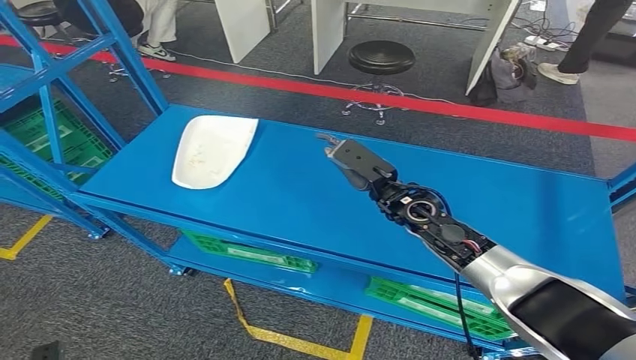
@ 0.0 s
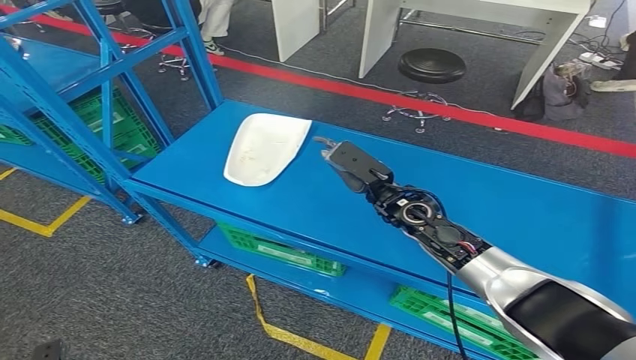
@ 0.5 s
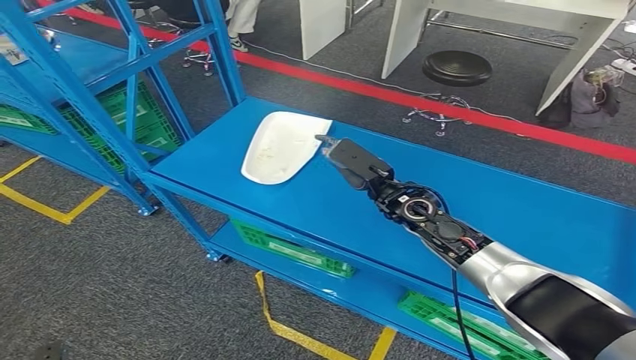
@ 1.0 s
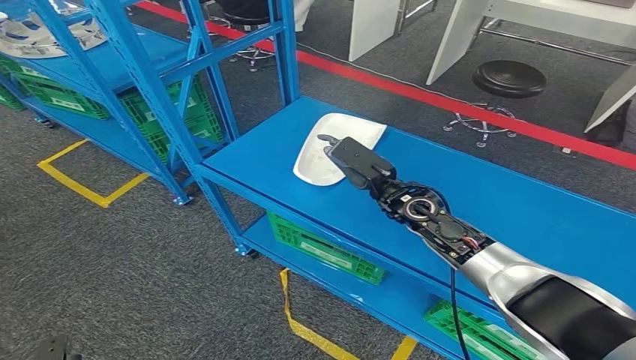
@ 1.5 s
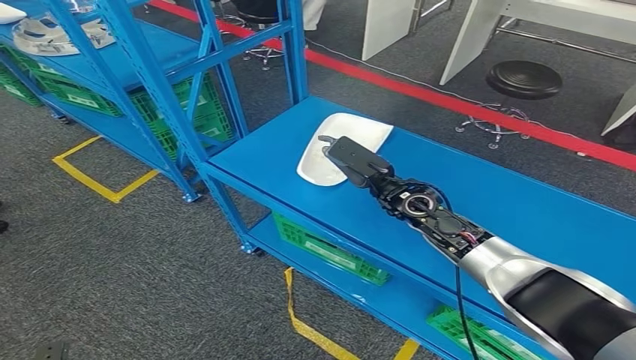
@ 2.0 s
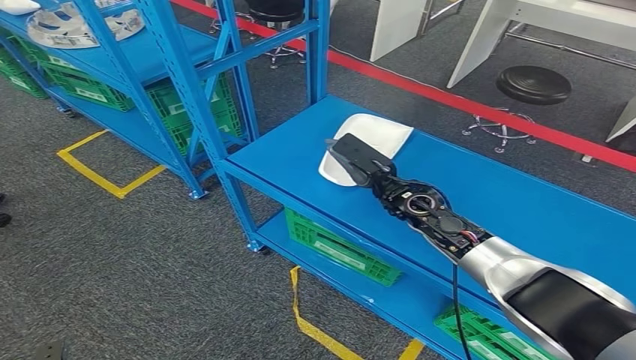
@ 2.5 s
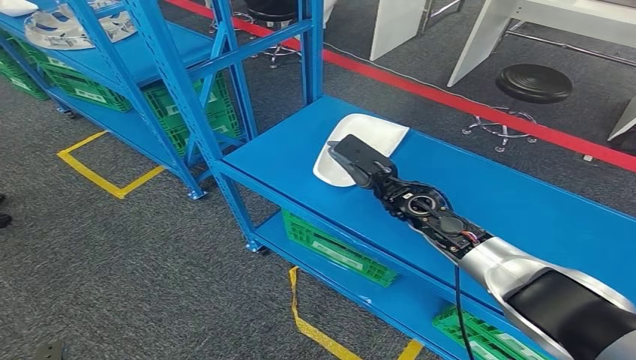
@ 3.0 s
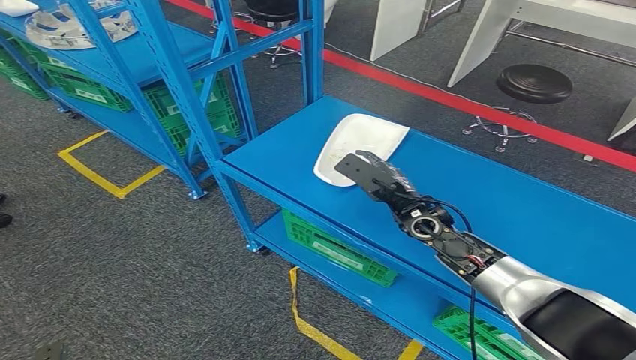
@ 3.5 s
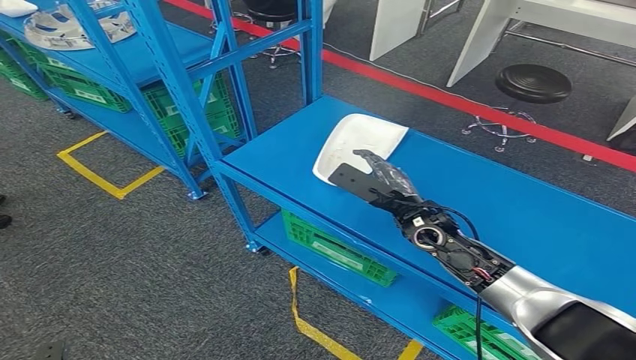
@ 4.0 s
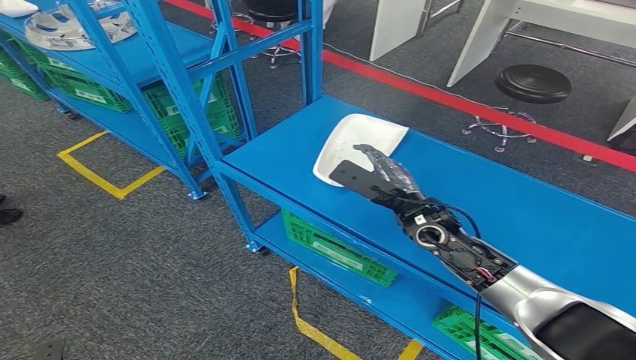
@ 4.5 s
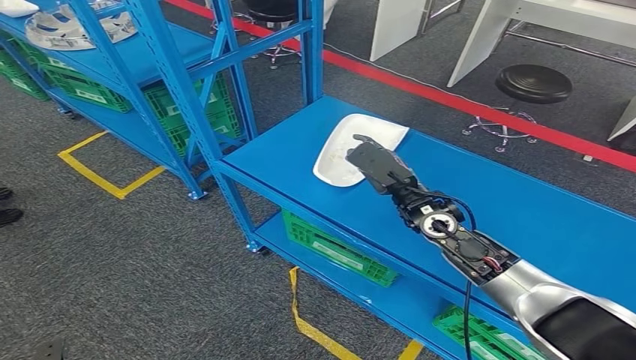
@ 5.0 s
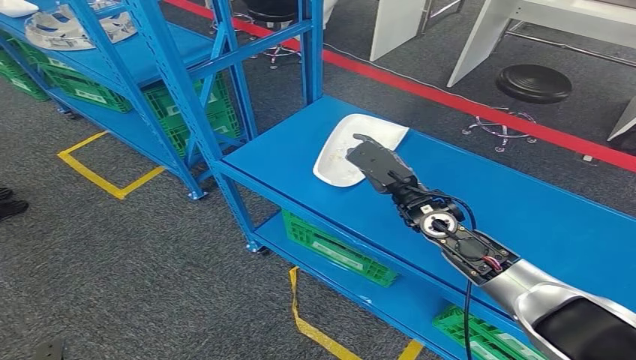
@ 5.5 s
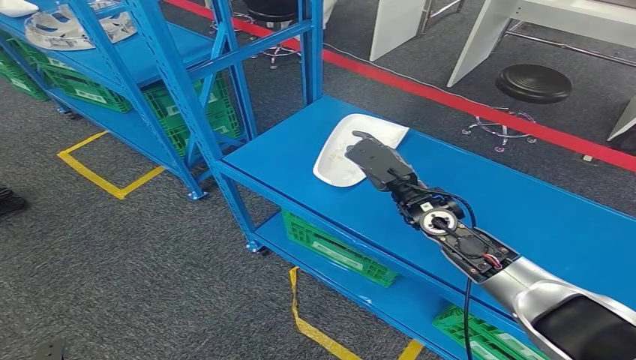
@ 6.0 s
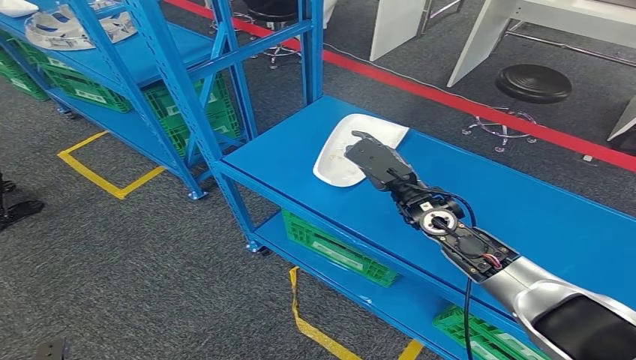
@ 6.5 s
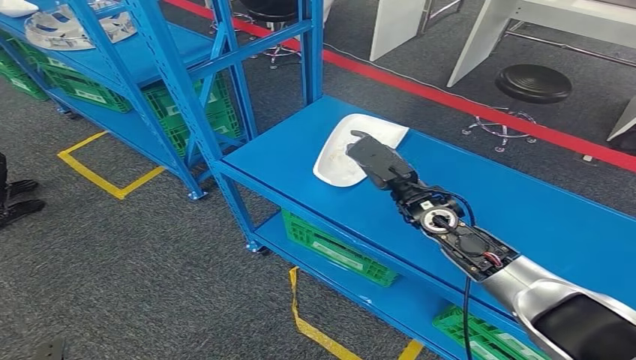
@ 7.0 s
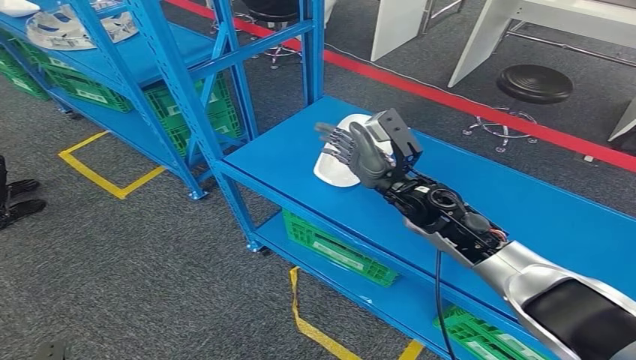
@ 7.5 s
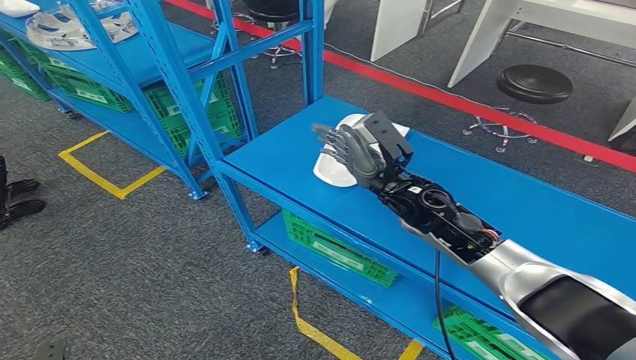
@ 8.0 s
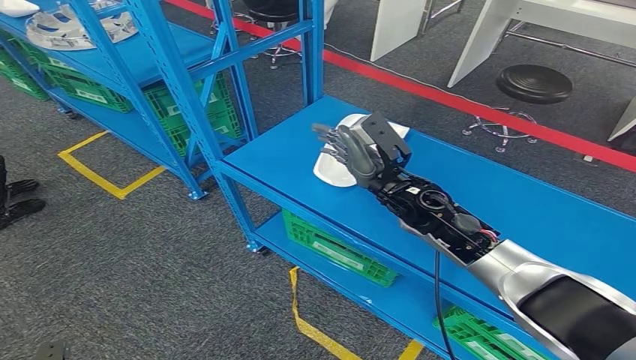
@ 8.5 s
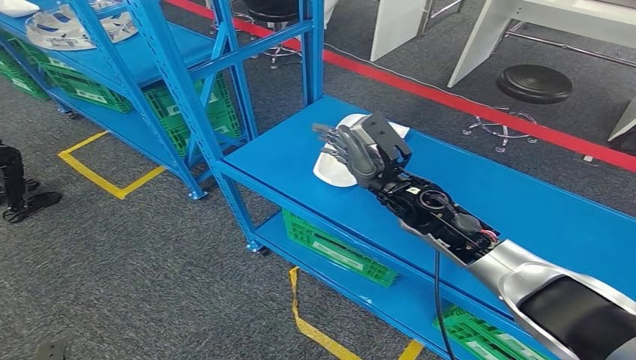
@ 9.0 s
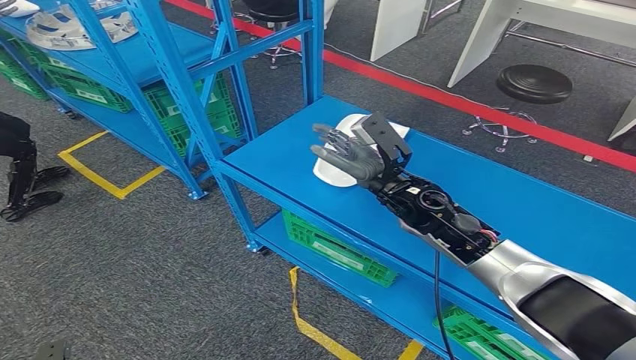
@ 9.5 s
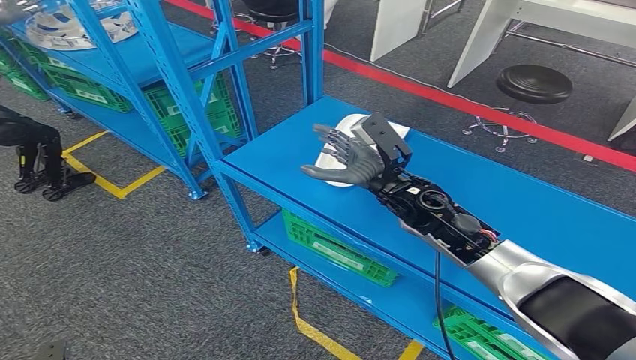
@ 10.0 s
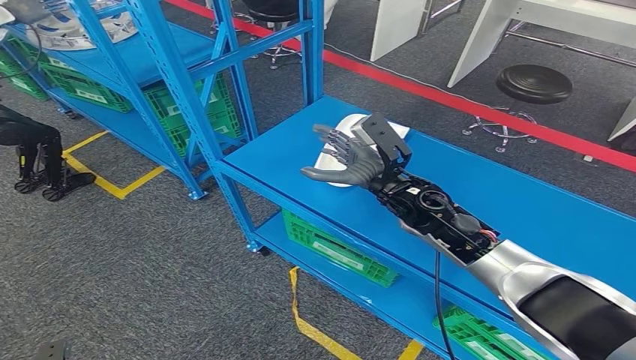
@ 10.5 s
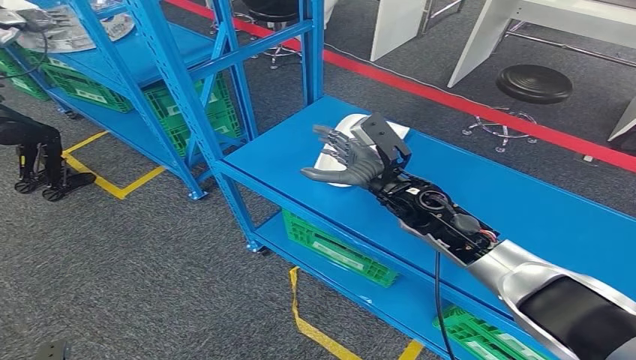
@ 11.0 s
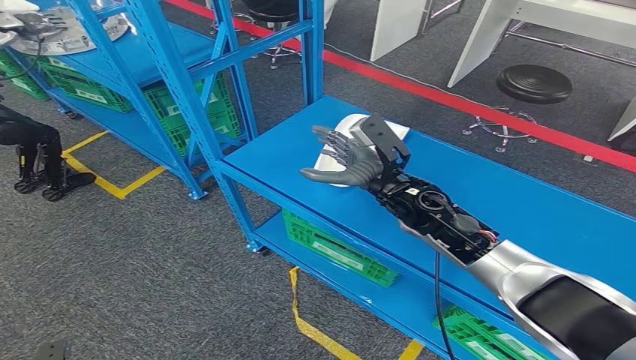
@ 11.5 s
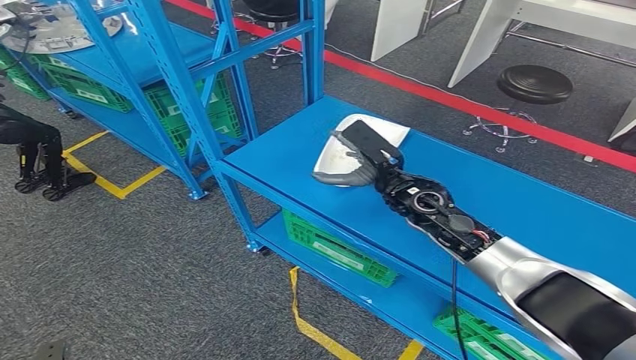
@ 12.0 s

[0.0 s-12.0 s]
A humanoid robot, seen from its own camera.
4.0 to 6.0 s: The hands make only small movements.
8.0 to 10.0 s: Both hands stay about where they are.
10.0 to 12.0 s: The hands stay close to where they were, moving slightly.

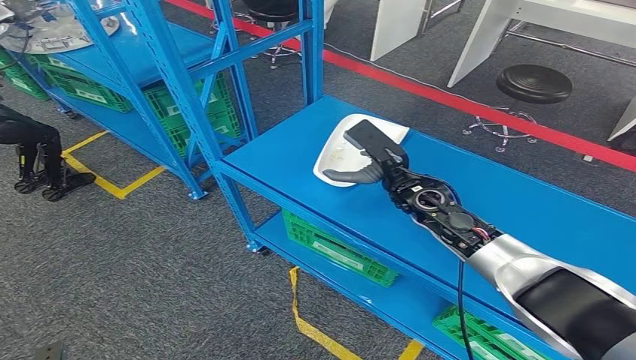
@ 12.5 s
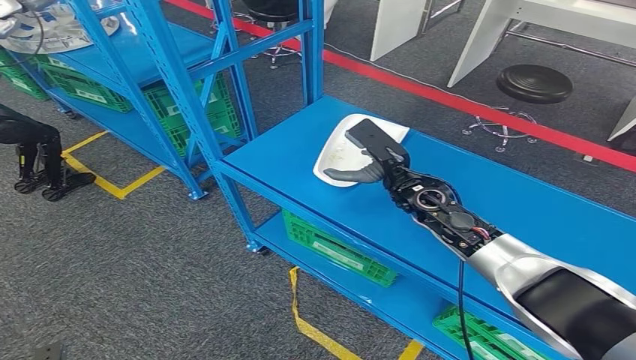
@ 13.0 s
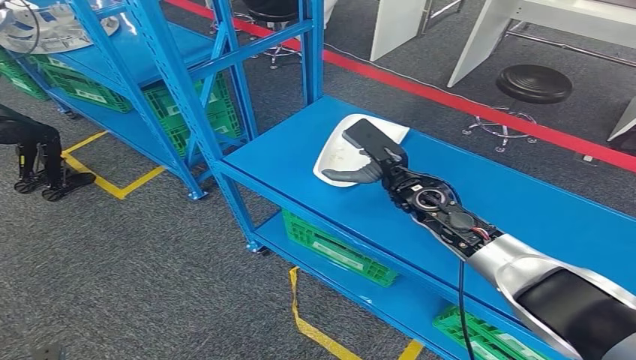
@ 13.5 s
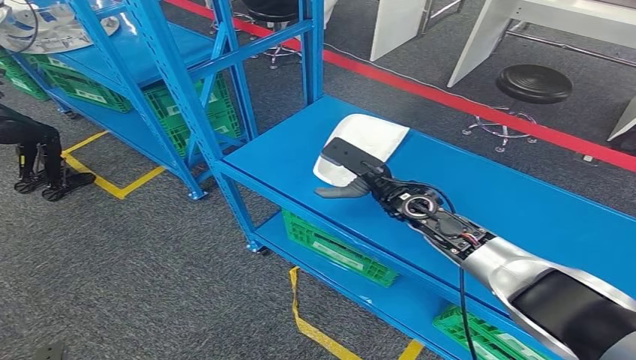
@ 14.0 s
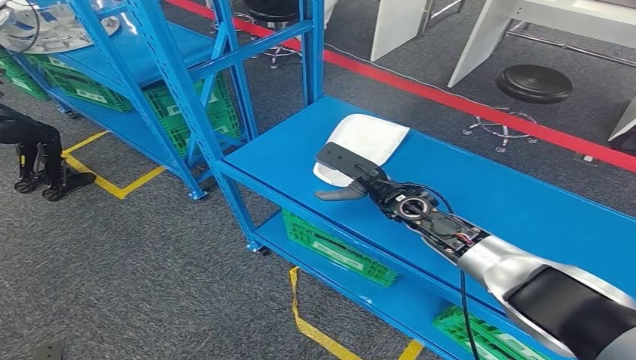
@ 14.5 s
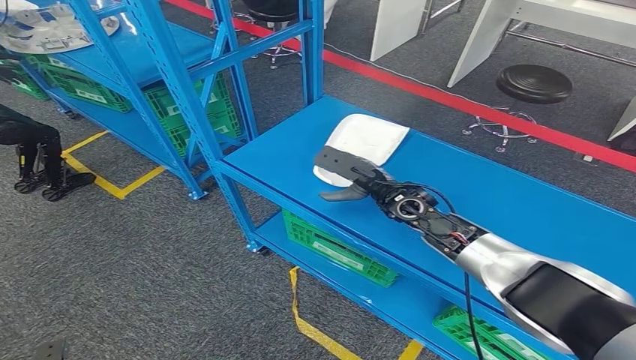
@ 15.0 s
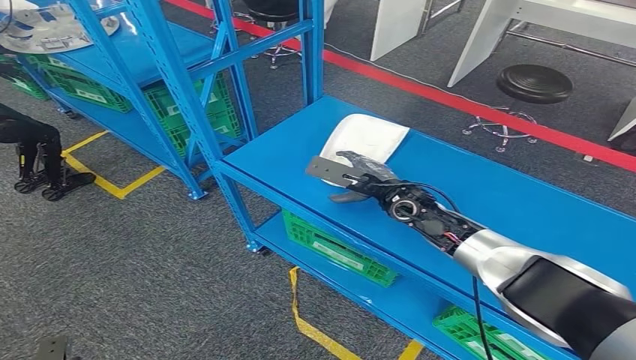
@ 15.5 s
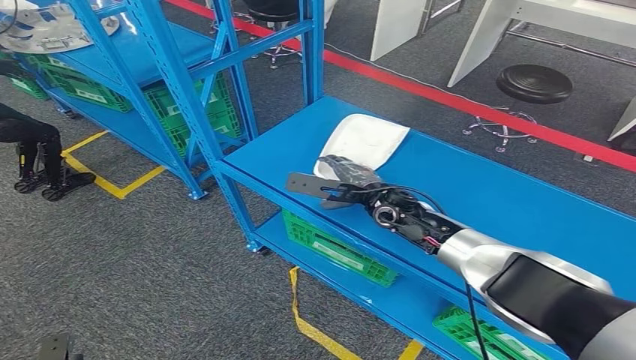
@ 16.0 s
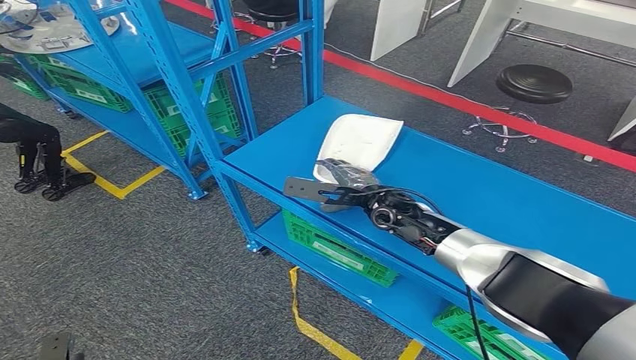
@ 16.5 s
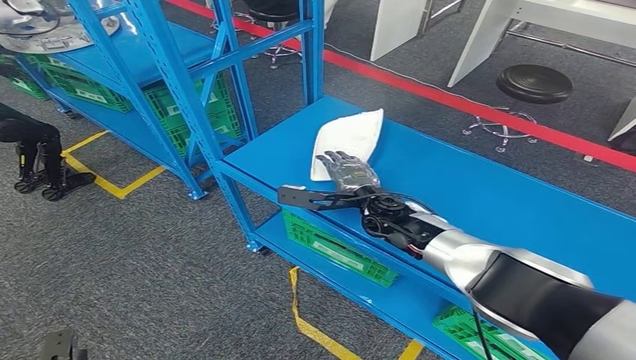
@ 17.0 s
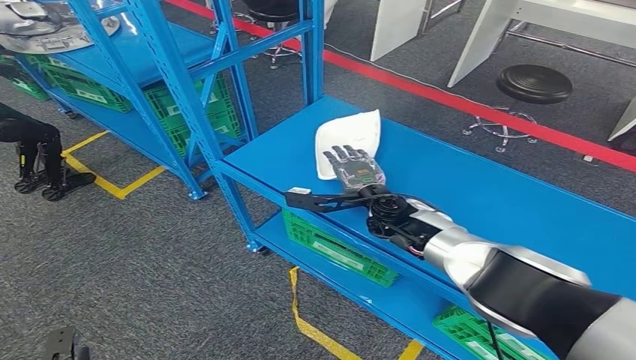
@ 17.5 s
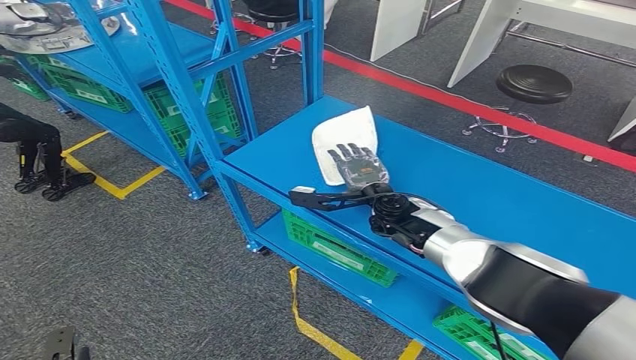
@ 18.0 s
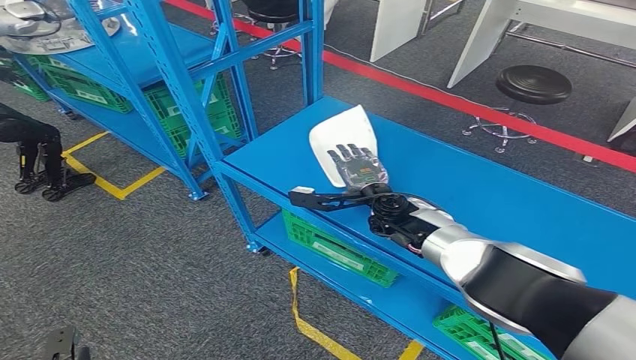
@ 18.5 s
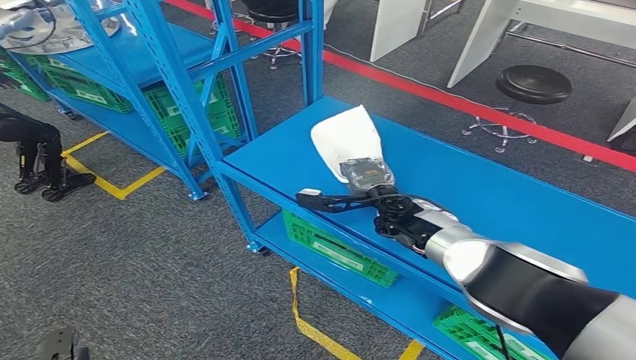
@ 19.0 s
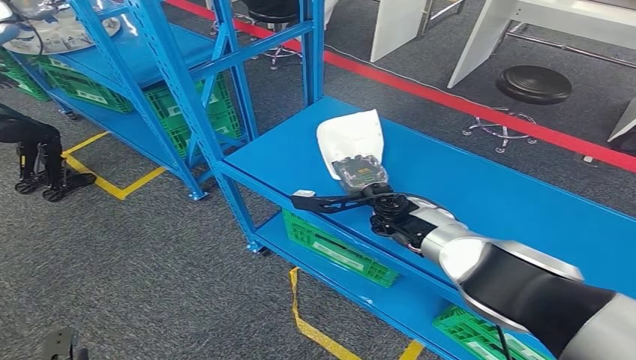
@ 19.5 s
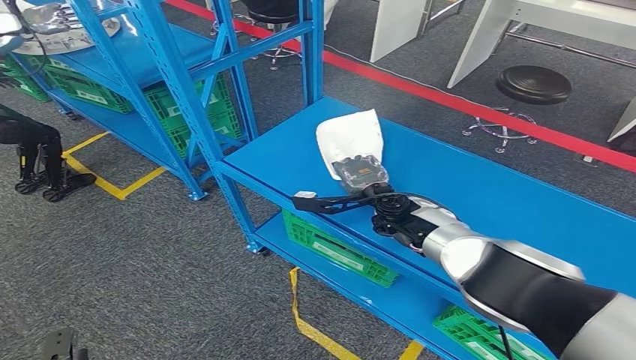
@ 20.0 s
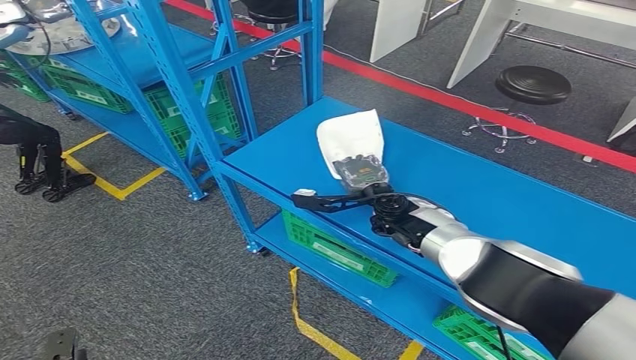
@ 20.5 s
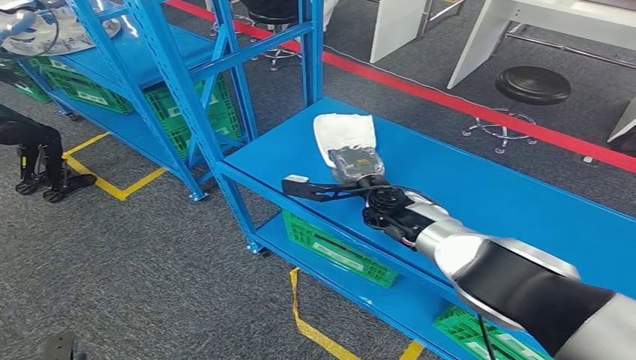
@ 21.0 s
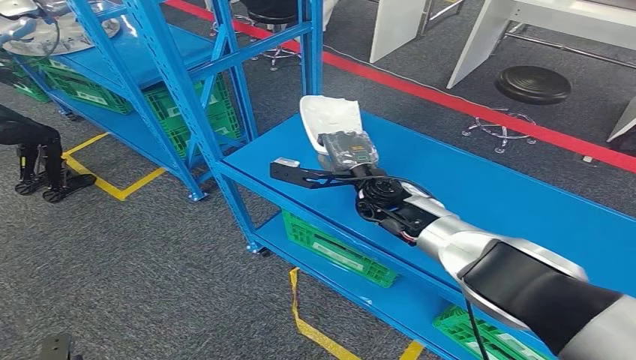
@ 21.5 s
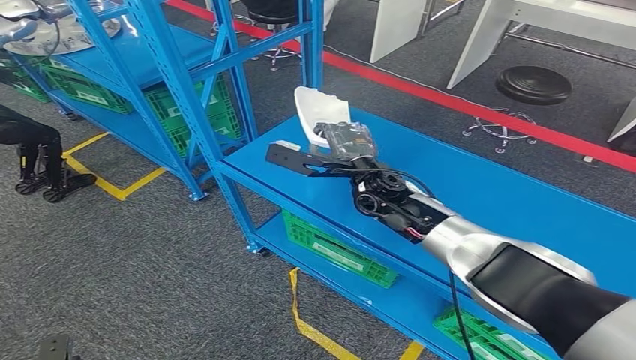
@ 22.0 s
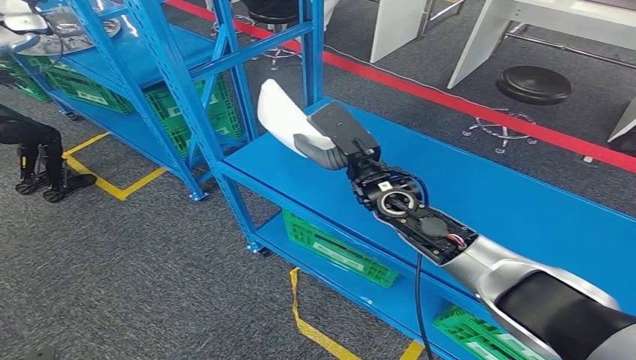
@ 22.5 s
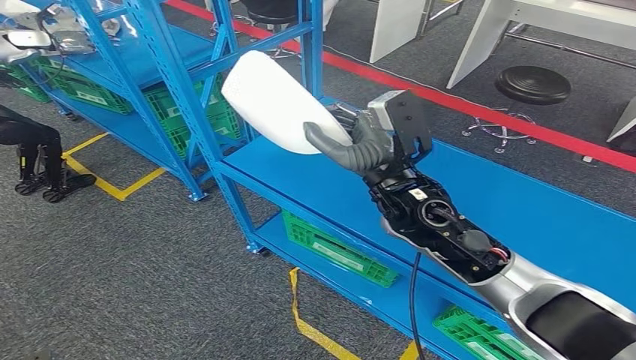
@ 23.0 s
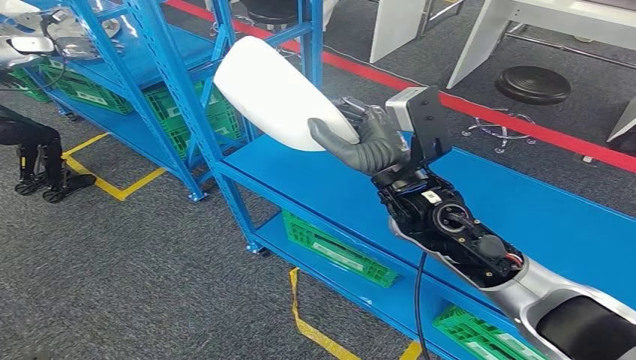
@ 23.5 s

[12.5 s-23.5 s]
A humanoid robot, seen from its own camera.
12.5 to 14.5 s: The hands move only a little.
18.0 to 20.0 s: There are only small adjustments of the hands.
20.0 to 21.5 s: The right hand shifts roughly 5 cm upward.
21.5 to 23.5 s: The right hand goes some 15 cm backward and upward.
